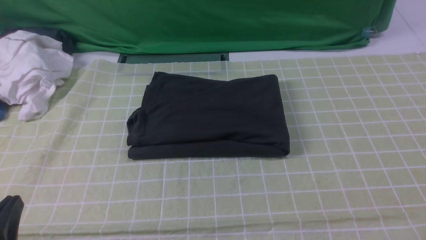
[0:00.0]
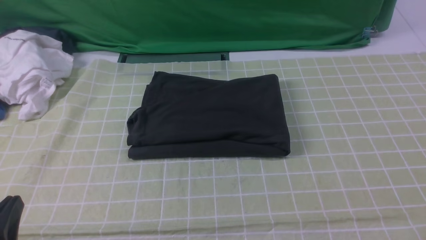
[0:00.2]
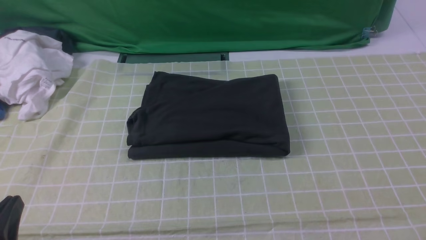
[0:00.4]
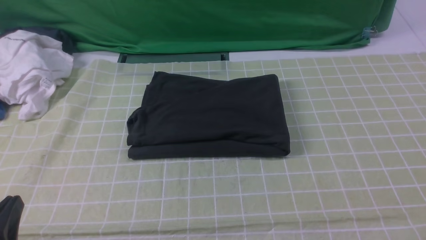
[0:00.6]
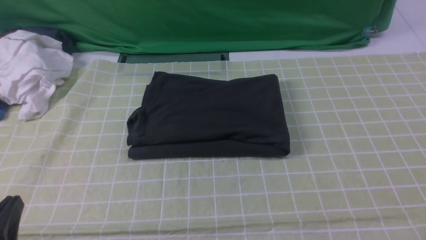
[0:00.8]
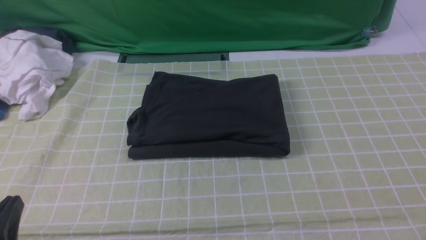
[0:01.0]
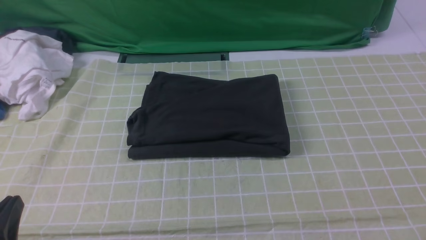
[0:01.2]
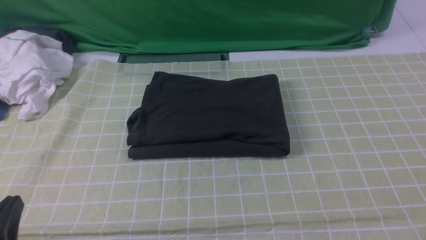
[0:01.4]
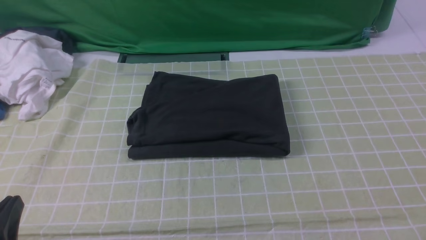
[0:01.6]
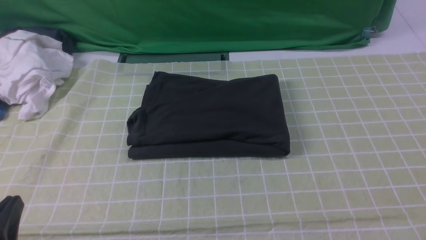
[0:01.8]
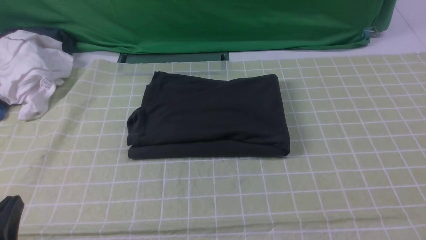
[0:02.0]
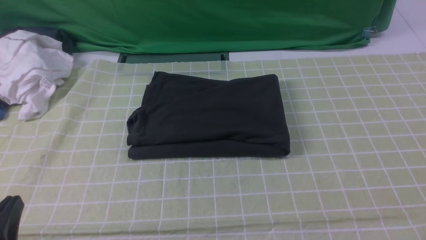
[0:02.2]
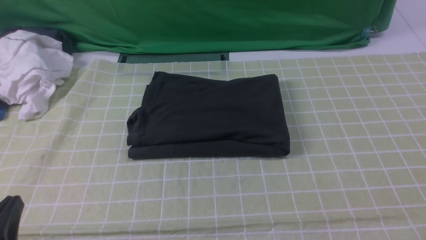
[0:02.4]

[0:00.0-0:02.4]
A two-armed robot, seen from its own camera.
0:00.0 to 0:02.4: Both grippers stay put.

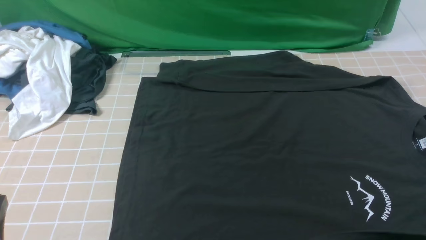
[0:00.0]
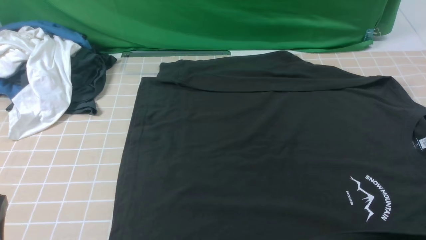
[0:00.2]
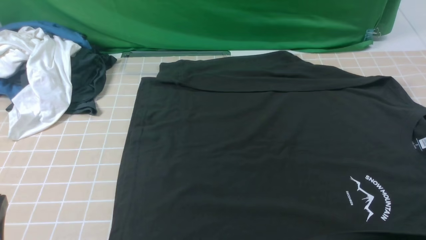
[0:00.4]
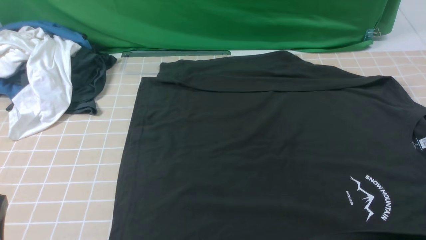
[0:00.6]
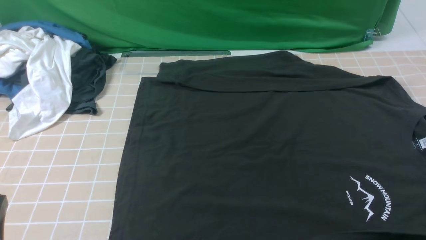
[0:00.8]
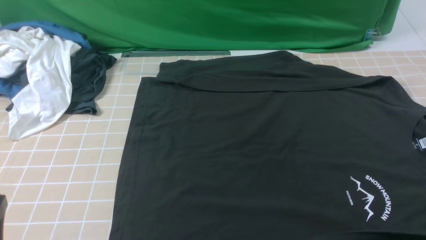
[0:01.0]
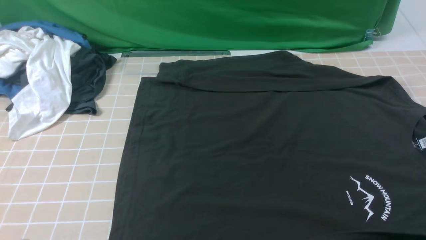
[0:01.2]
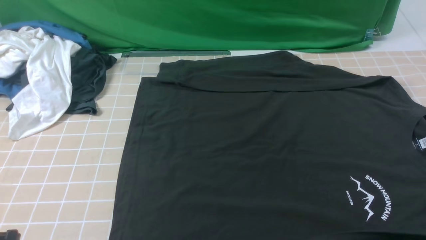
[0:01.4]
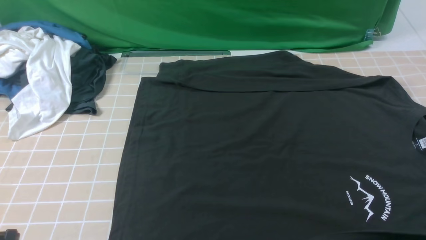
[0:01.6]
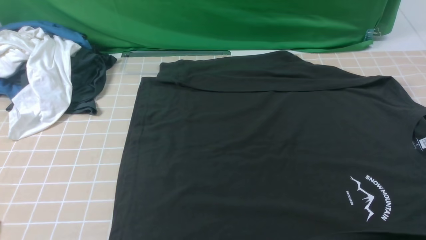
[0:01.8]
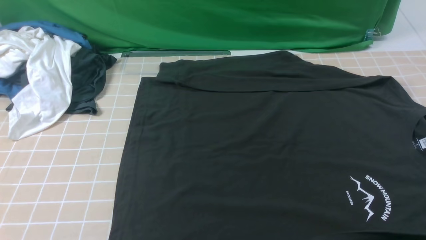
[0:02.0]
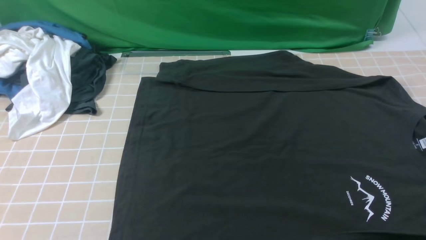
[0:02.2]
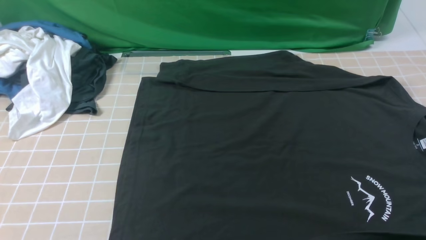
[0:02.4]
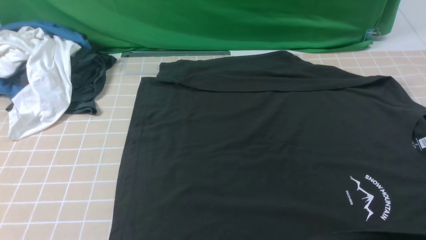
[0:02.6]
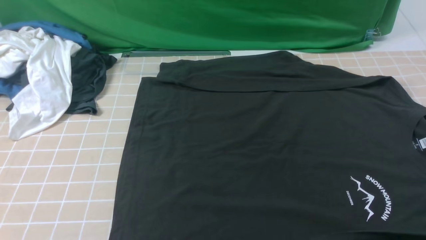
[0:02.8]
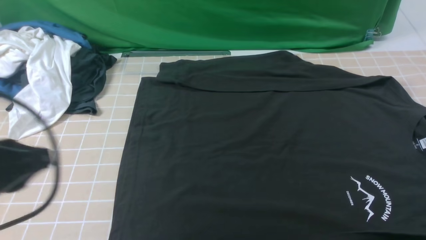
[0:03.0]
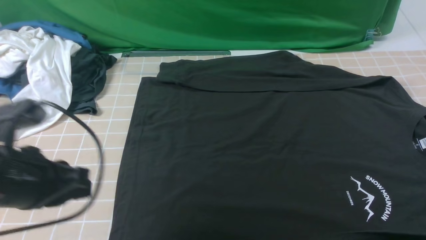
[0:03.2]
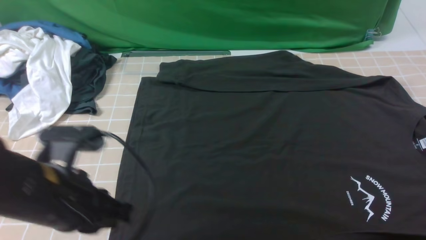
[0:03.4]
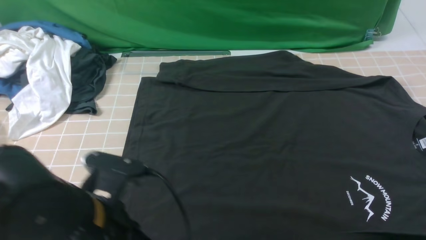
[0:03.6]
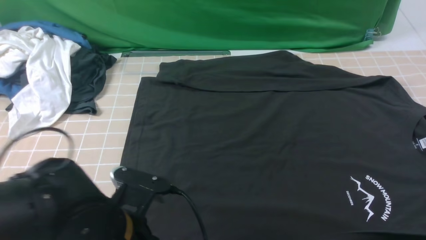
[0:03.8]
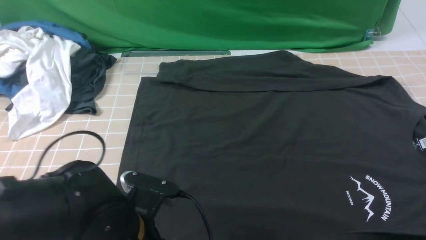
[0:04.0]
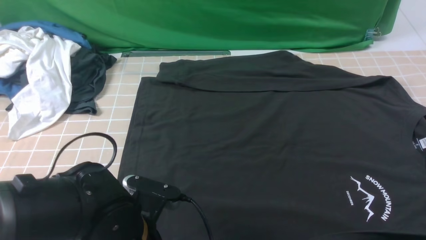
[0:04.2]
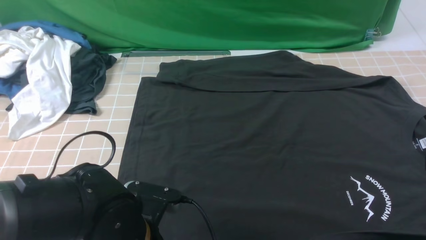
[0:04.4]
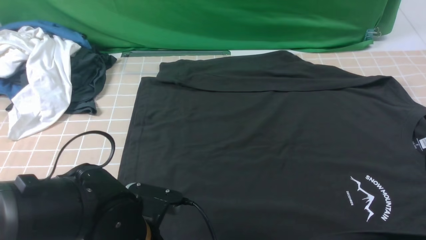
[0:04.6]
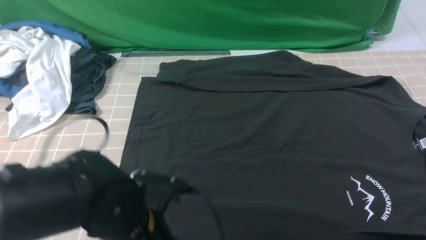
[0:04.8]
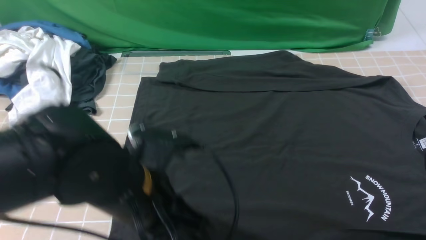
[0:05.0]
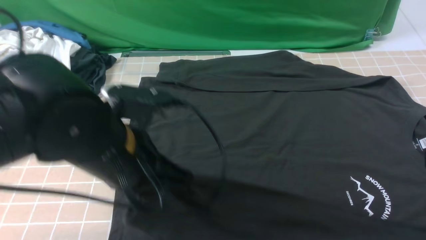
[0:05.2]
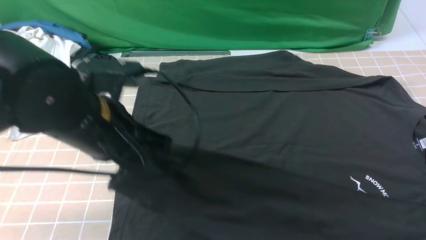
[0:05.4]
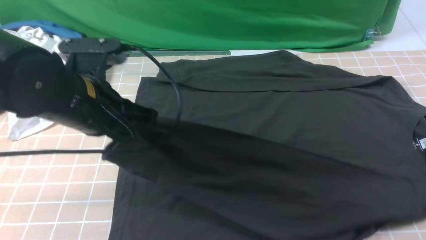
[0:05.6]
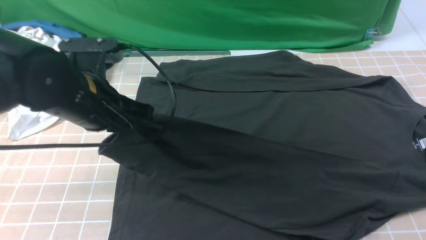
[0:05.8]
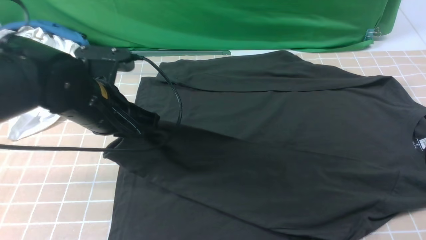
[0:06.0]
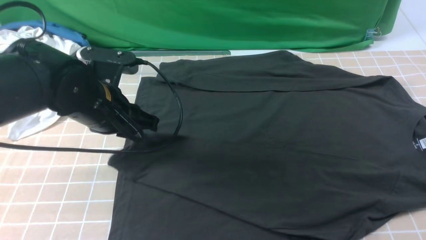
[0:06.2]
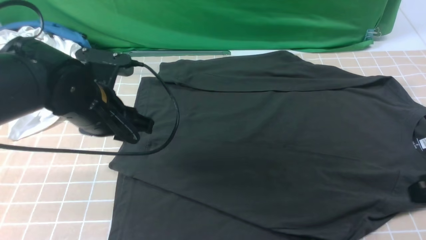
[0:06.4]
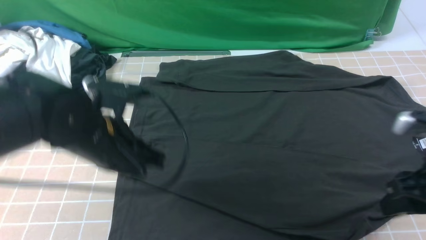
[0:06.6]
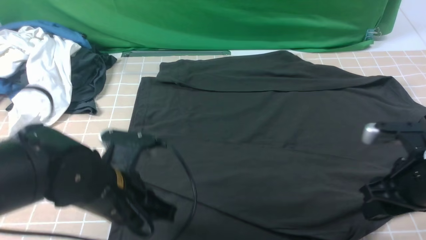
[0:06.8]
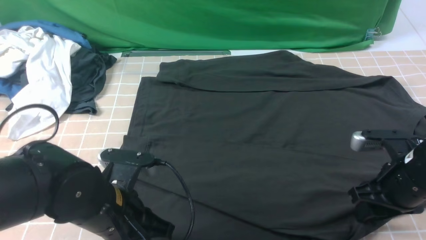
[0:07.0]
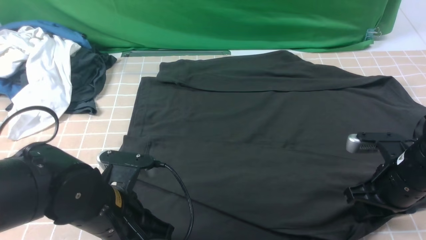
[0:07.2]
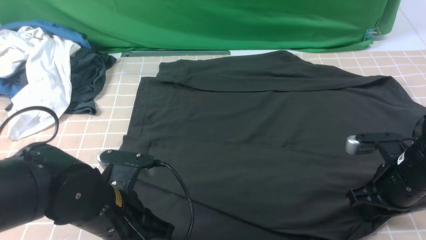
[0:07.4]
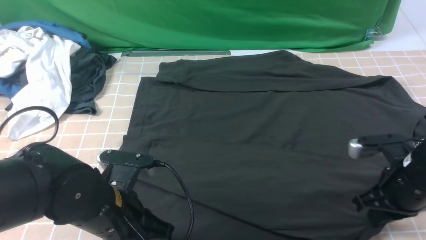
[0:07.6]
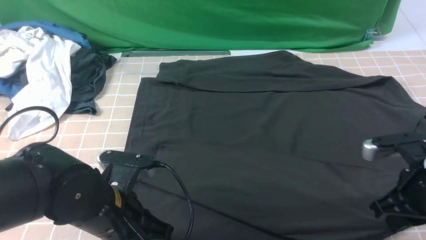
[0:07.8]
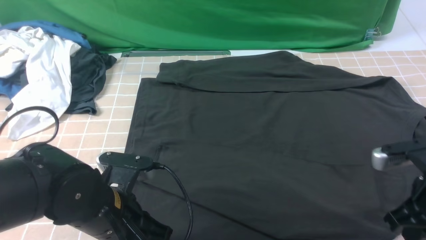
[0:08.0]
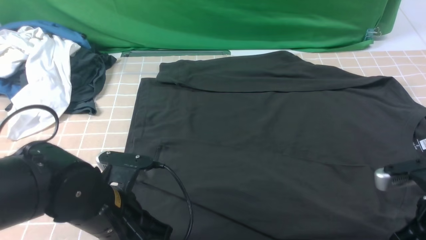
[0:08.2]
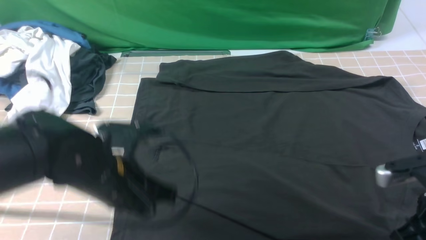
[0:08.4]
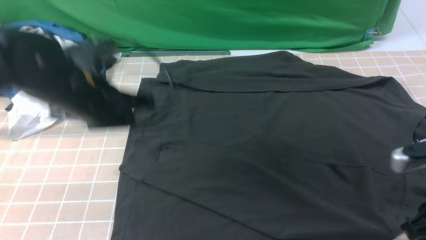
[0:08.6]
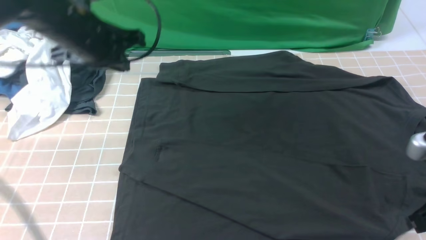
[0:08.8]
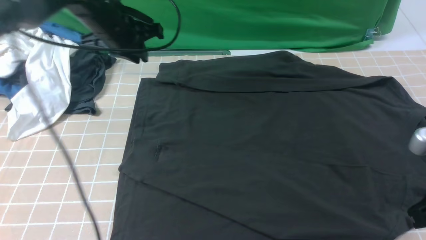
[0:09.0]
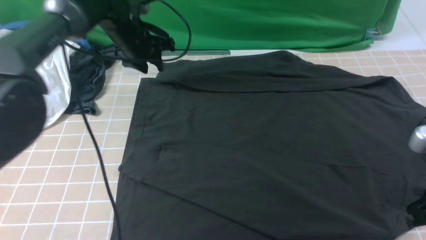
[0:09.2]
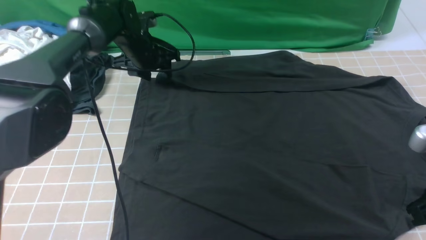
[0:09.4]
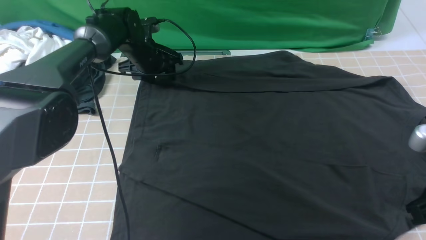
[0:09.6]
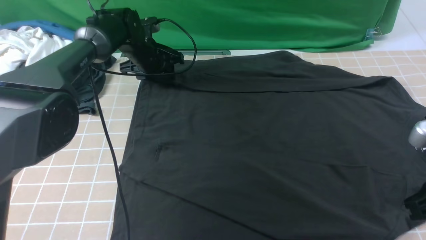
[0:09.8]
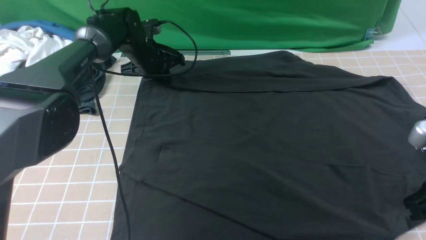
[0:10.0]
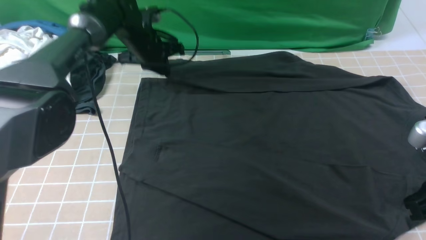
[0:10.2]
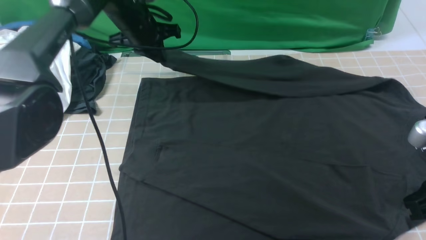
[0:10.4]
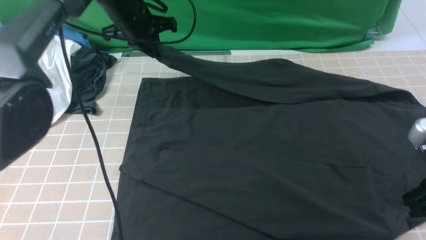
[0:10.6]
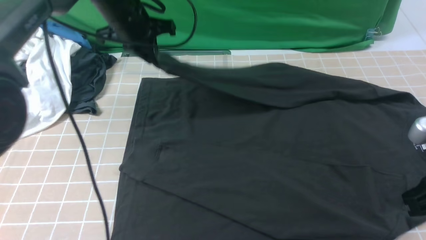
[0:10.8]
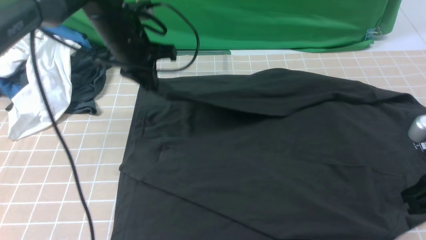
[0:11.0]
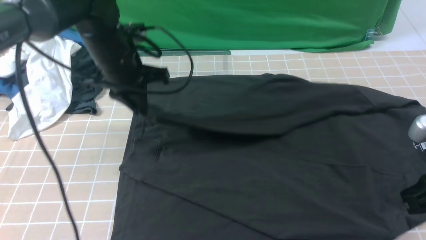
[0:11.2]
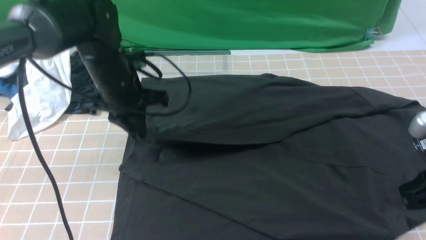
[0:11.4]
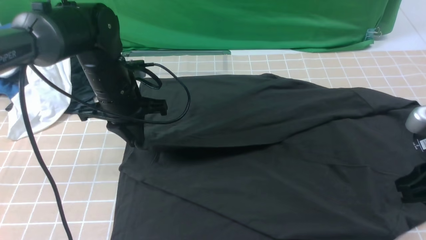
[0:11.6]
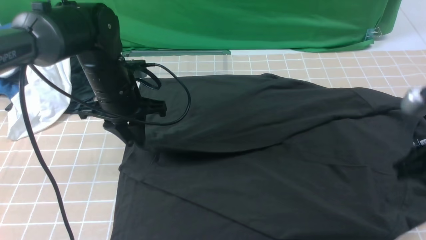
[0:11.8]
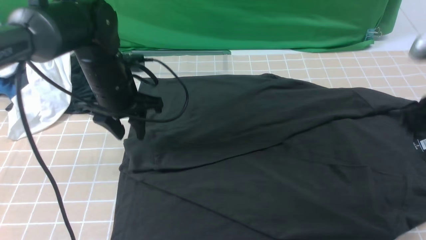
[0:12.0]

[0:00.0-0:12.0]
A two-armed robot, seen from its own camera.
Step, 0:00.0 to 0:05.0: use the left arm to clamp the cuff closest to it.
Step, 0:05.2 to 0:06.4: use the left arm to drag and place the cuff at the centered position on the left edge of the fabric.
Step, 0:06.6 to 0:10.4: use the left arm to clamp the cuff farthest from it.
Step, 0:10.6 to 0:11.8: use the left arm to drag and drop the cuff onto the cuff closest to the left arm.
0:01.6 to 0:03.0: The left gripper travels upward and forward by about 10 cm.
0:03.0 to 0:04.4: The right gripper goes some 5 cm downward. Meanwhile the left gripper heads to the right and downward, covering roughly 20 cm, and opens its fingers.
0:04.4 to 0:06.0: The left gripper shifts roughly 20 cm forward, upward and to the left, and closes up.
0:06.0 to 0:07.6: The left gripper goes approximately 15 cm backward and downward. The right gripper shifts some 15 cm downward and forward, and opens, then closes again.
0:07.6 to 0:09.0: The left gripper goes approximately 30 cm forward. The right gripper is displaced upward and backward by some 10 cm.
0:09.0 to 0:10.4: The left gripper travels forward by roughly 5 cm, moves about 10 cm downward and comes back, and opens, then closes once more.
0:10.4 to 0:12.0: The left gripper heads backward, covering about 15 cm, and opens, while the right gripper is displaced forward by some 10 cm.

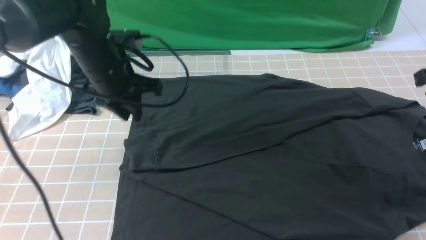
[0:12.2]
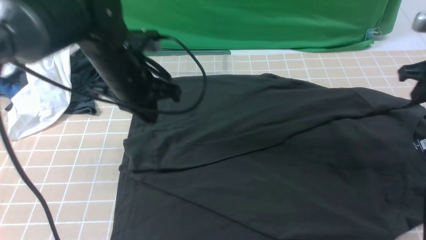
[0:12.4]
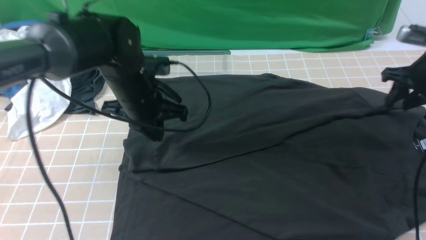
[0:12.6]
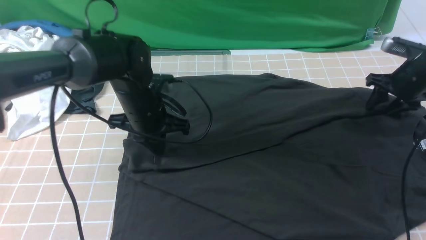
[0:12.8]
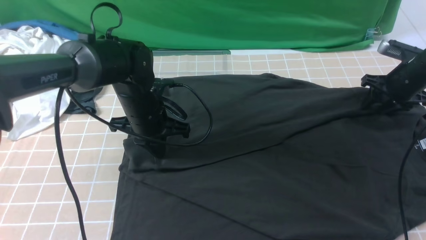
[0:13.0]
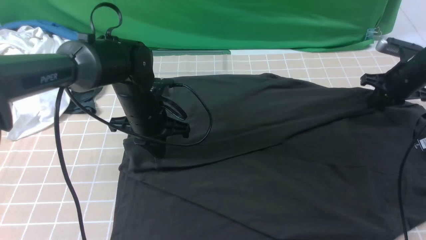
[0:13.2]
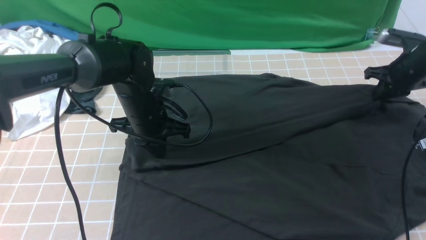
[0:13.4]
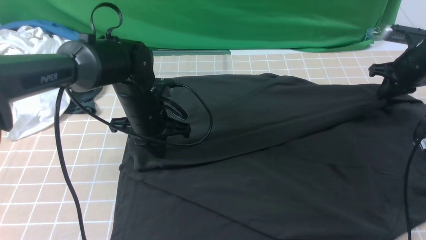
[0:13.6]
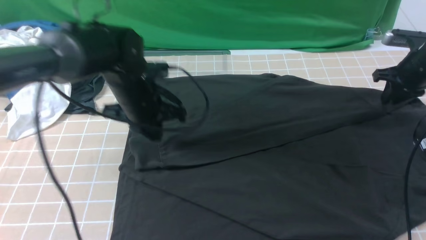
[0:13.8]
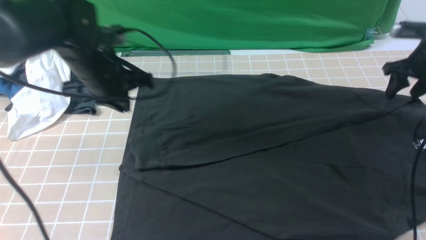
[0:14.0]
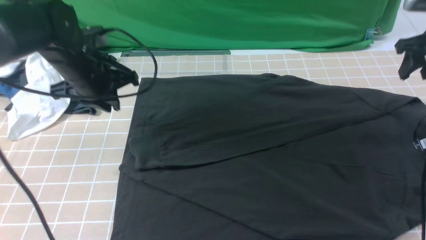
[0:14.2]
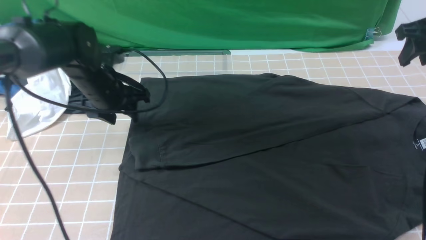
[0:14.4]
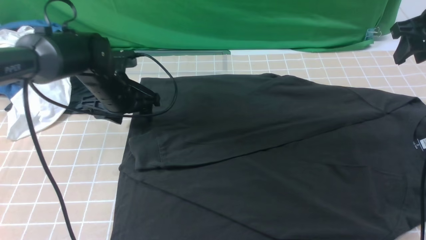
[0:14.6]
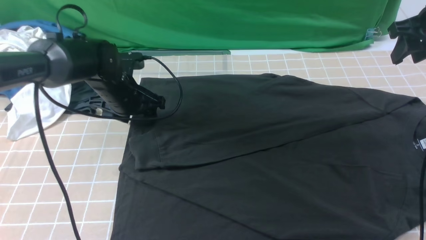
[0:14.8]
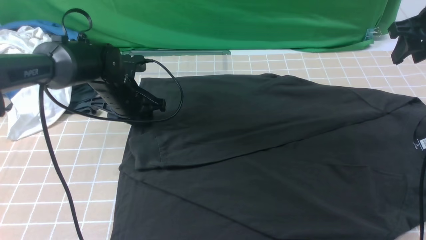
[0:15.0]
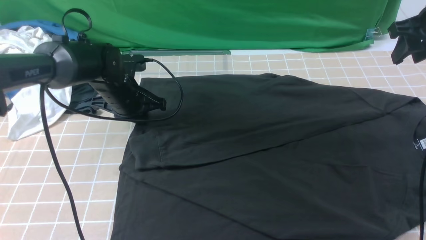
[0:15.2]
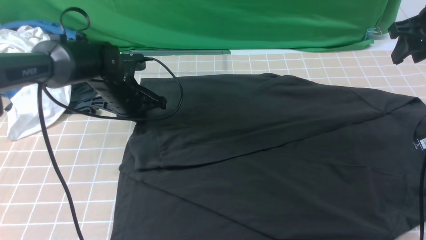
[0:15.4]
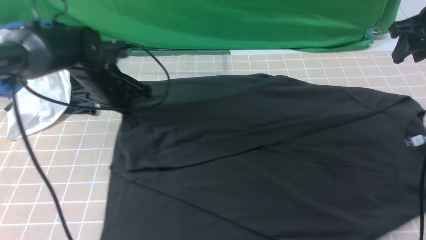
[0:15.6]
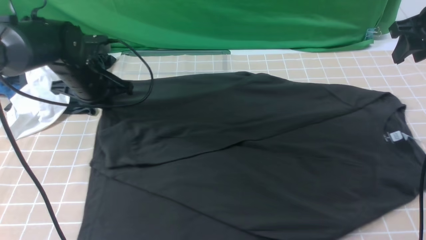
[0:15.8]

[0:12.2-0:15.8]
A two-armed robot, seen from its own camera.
0:12.2 to 0:14.0: The left gripper moves approximately 10 cm downward and comes back, while the right gripper moves forward, downward and to the right, about 15 cm, and opens up.
0:14.0 to 0:15.8: The right gripper heads upward, covering approximately 10 cm. Meanwhile the left gripper shifts about 5 cm to the left, and opens, then closes once more.
